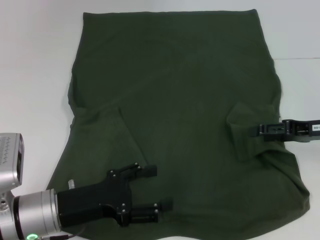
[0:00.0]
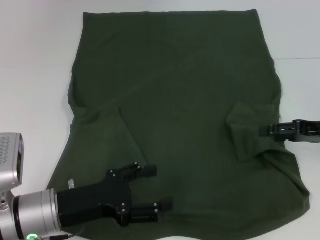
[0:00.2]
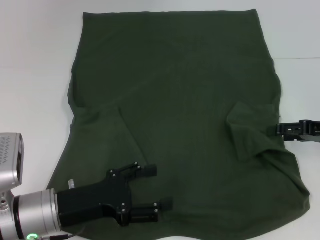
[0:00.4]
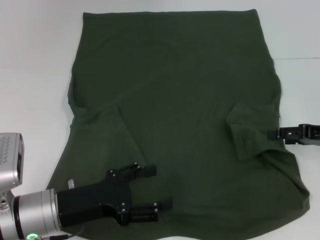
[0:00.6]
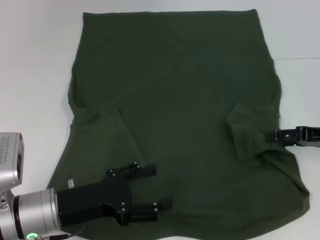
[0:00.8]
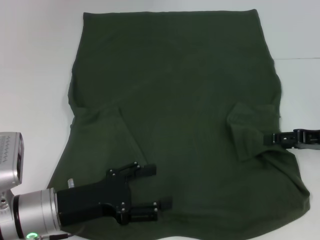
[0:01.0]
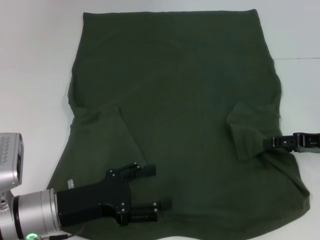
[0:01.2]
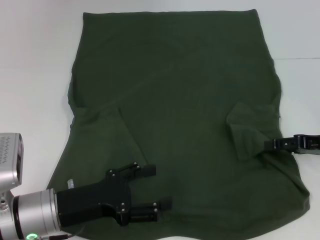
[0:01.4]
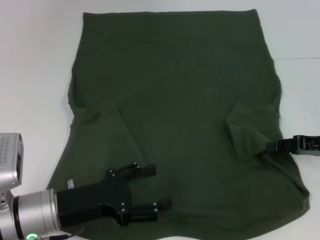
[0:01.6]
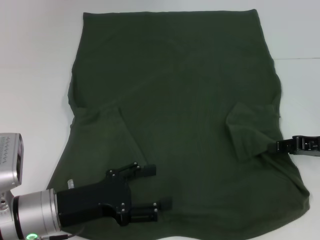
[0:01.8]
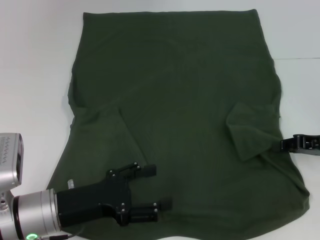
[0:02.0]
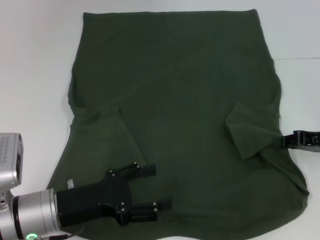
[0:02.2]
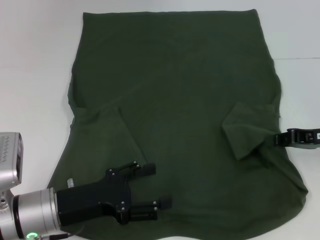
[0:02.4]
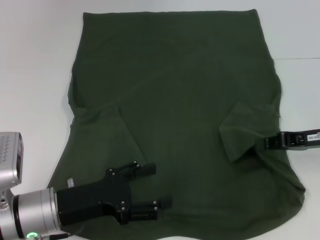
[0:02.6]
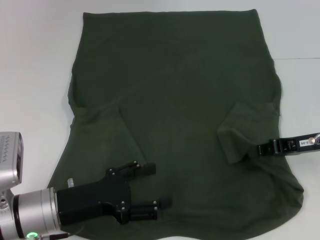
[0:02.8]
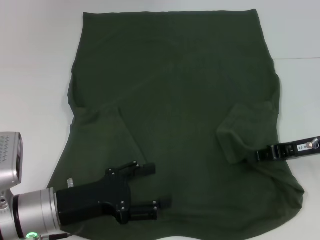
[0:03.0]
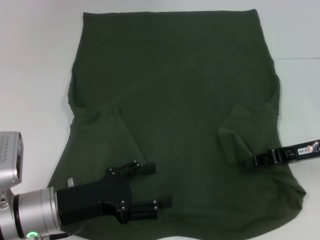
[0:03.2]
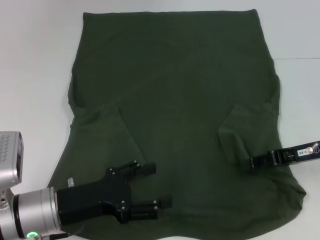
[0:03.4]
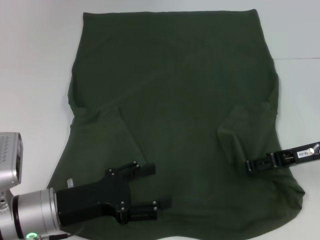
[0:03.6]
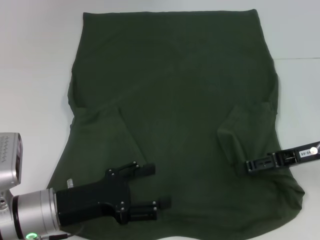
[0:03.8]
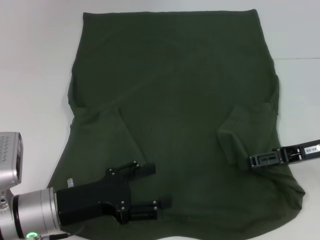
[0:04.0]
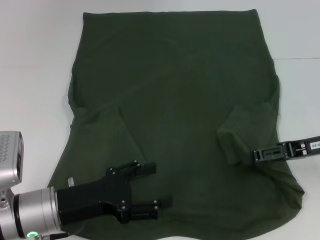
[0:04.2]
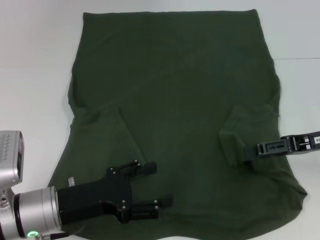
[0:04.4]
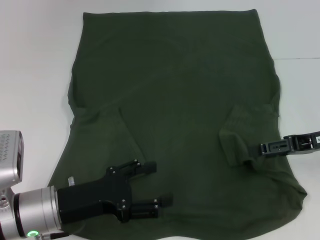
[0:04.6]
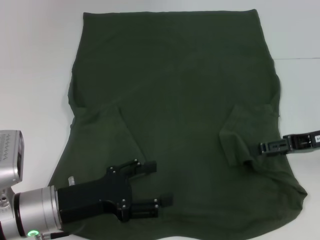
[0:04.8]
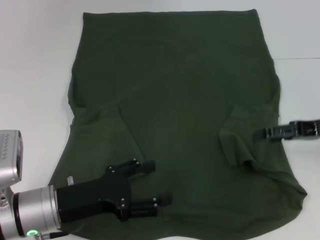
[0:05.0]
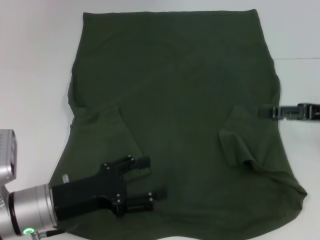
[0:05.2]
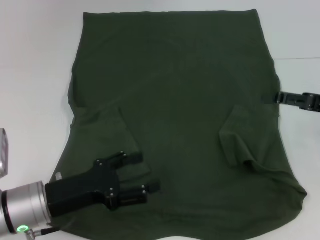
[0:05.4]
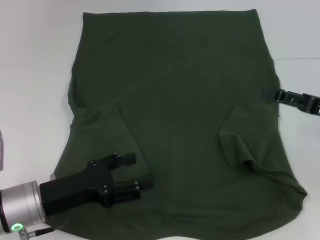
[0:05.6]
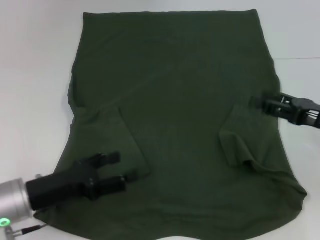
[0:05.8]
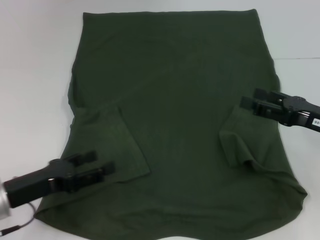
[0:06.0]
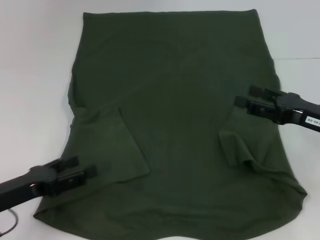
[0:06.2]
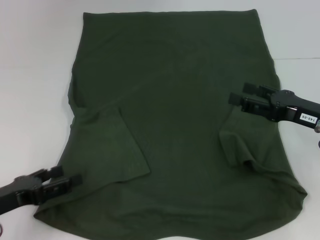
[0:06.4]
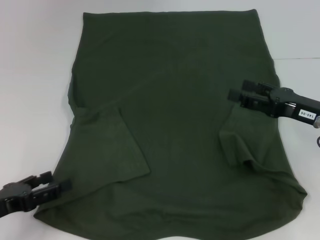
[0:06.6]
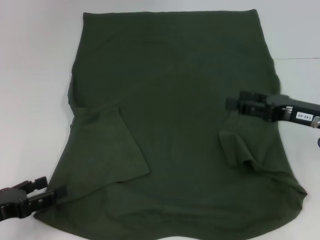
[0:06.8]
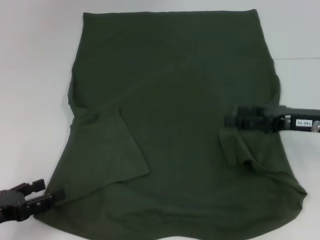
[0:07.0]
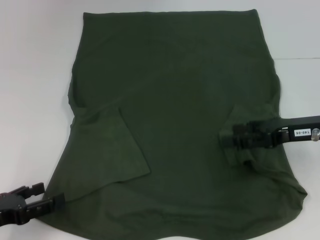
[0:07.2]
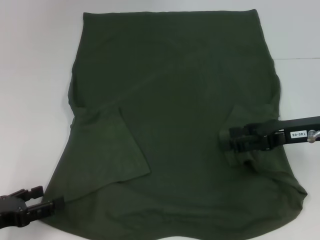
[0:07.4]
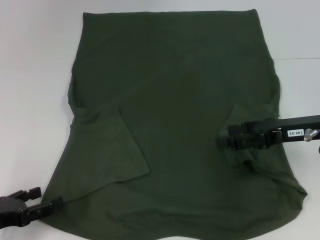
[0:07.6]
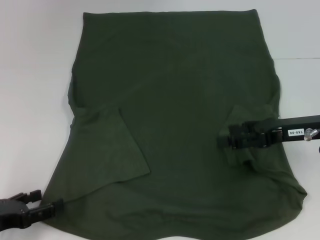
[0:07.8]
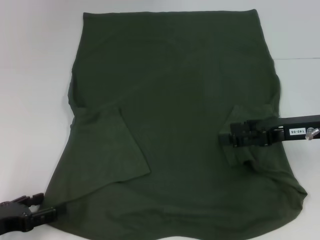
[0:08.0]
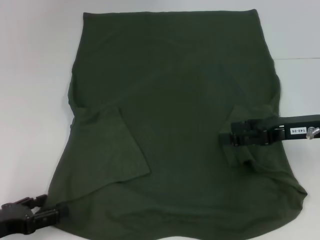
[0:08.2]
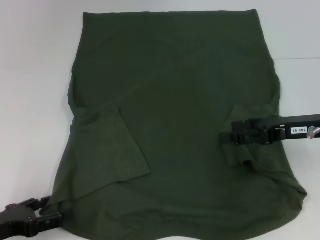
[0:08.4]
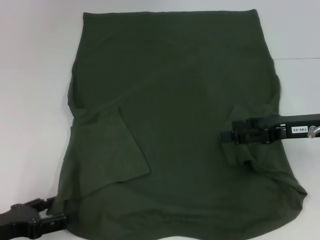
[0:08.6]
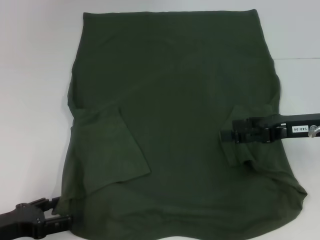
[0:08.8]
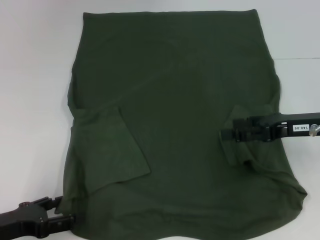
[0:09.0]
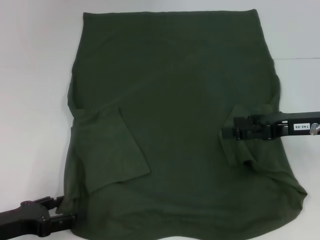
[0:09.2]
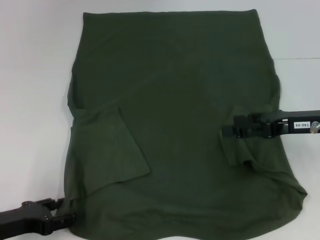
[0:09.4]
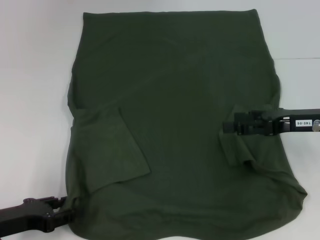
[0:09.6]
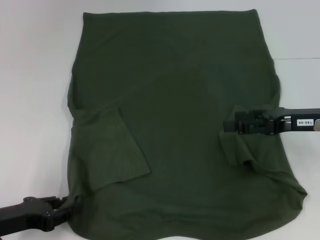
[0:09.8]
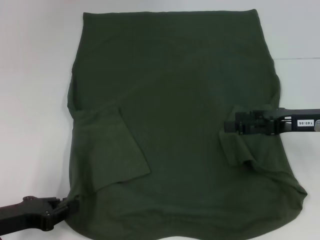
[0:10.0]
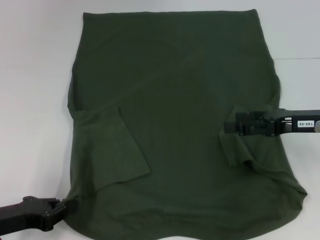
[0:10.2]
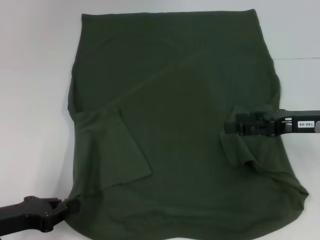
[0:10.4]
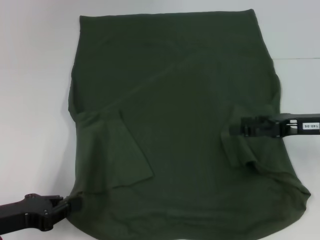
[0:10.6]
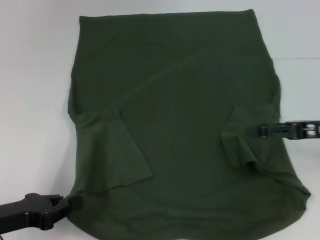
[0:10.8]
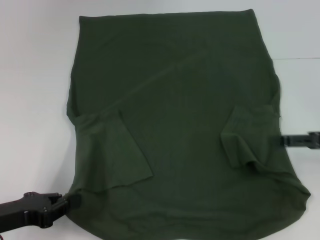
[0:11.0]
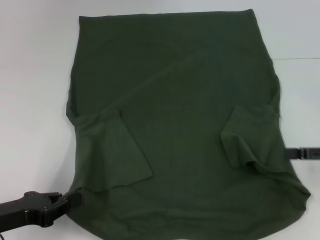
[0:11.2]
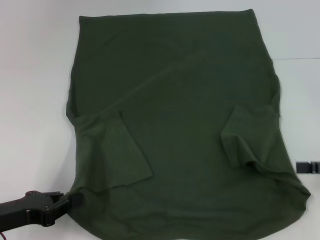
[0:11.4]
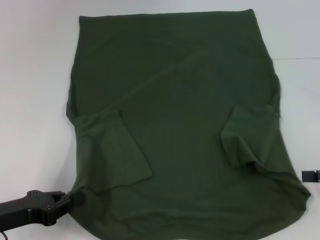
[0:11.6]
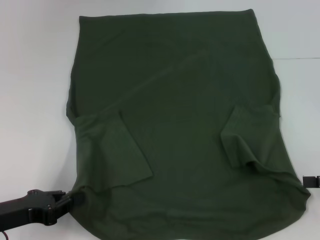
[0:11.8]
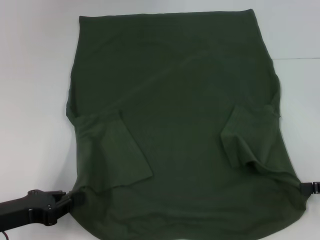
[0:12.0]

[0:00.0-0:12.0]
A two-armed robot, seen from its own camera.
Step, 0:00.0 to 0:04.4: Fold the bottom right sleeve with your right hand.
Step, 0:04.6 to 0:10.0: Grab the bottom left corner with your left hand.
0:00.0 to 0:01.6: The grippers move only a little.
0:01.6 to 0:03.0: The right gripper closes its fingers.
0:03.0 to 0:04.4: The right gripper opens up.
0:04.4 to 0:06.0: The left gripper travels to the left by about 5 cm.
0:06.0 to 0:07.6: The left gripper goes about 5 cm to the left.
0:07.6 to 0:09.0: The grippers move only a little.
0:09.0 to 0:10.4: The left gripper closes its fingers.
0:10.4 to 0:12.0: The right gripper goes some 15 cm to the right and backward.

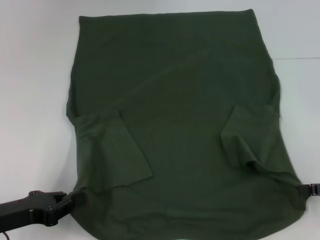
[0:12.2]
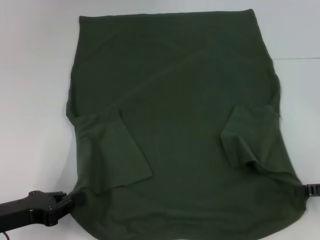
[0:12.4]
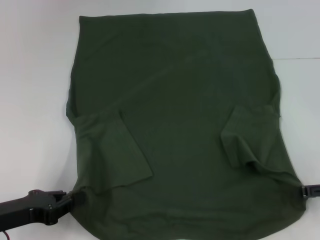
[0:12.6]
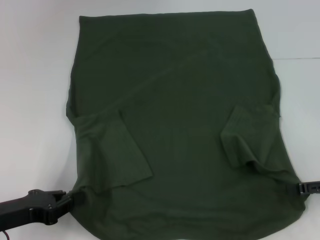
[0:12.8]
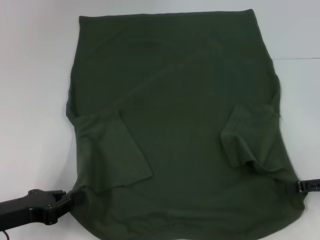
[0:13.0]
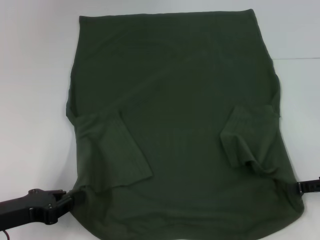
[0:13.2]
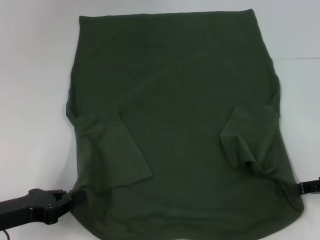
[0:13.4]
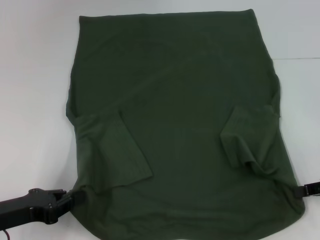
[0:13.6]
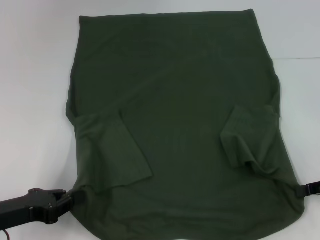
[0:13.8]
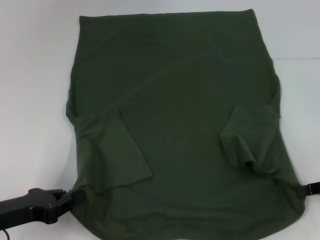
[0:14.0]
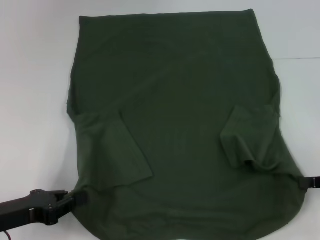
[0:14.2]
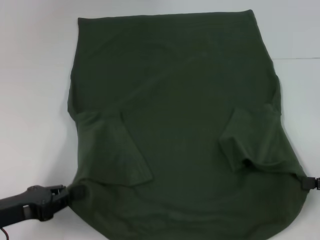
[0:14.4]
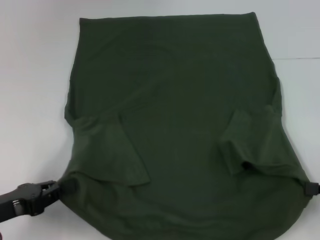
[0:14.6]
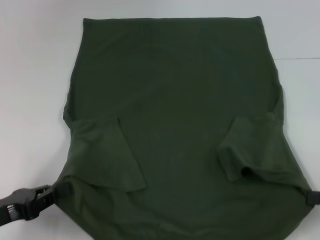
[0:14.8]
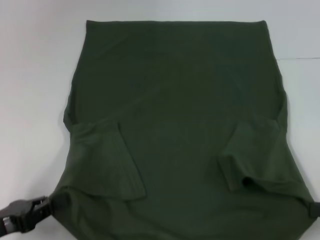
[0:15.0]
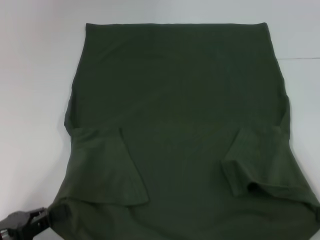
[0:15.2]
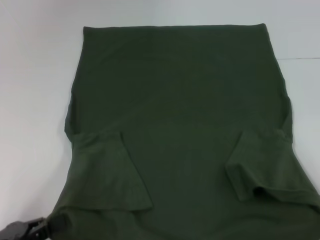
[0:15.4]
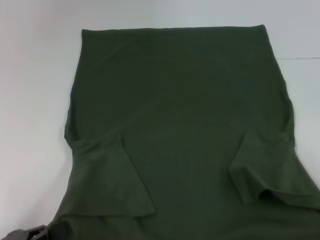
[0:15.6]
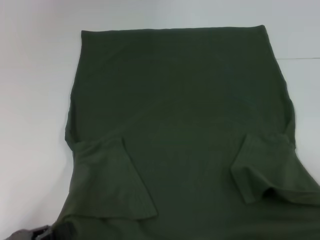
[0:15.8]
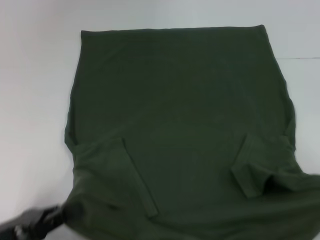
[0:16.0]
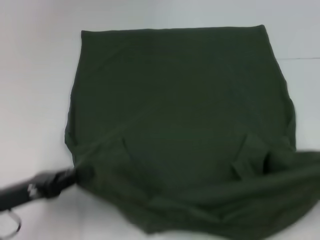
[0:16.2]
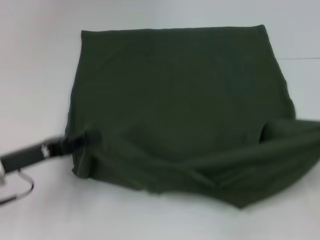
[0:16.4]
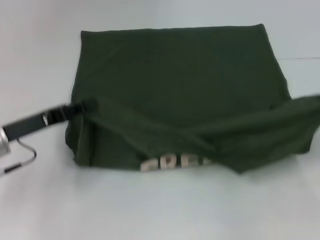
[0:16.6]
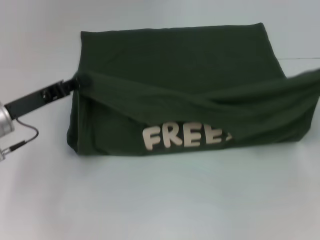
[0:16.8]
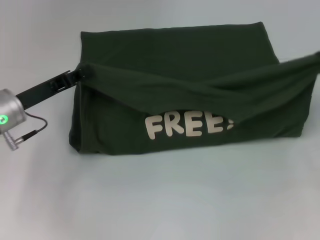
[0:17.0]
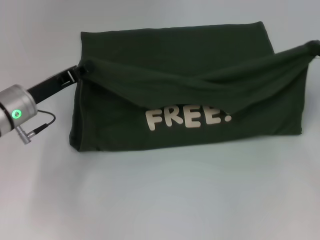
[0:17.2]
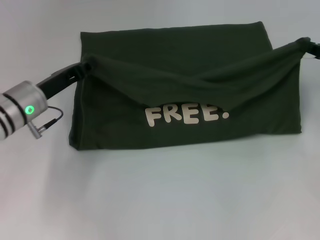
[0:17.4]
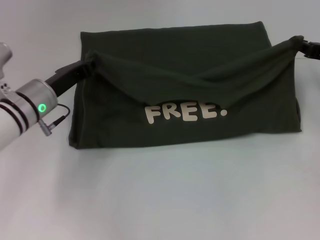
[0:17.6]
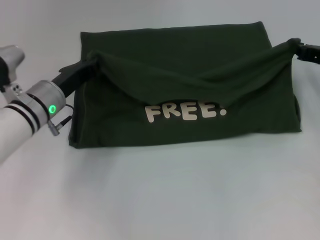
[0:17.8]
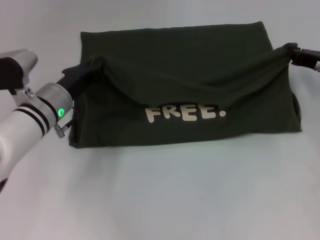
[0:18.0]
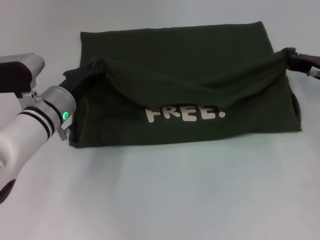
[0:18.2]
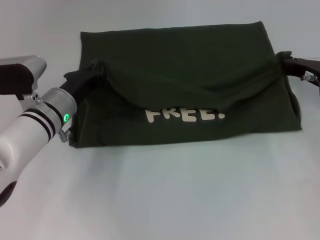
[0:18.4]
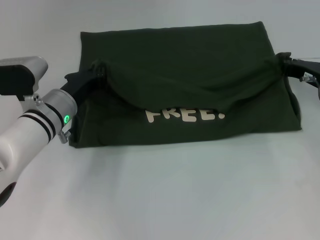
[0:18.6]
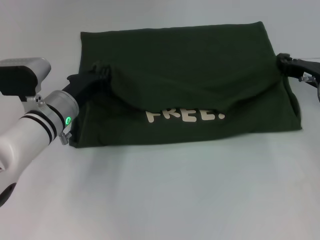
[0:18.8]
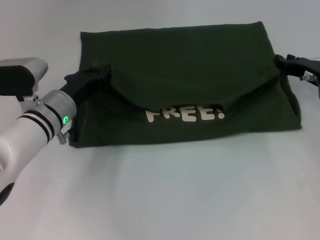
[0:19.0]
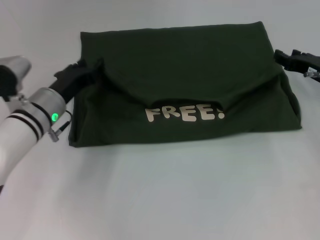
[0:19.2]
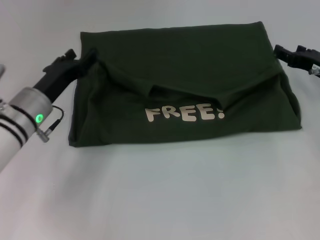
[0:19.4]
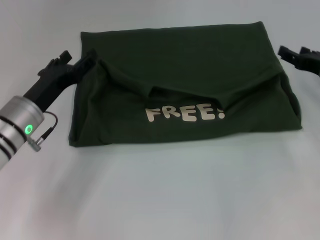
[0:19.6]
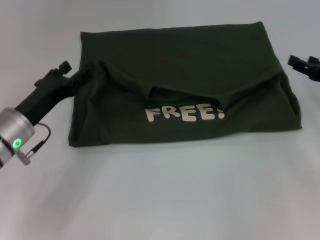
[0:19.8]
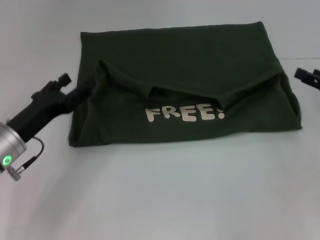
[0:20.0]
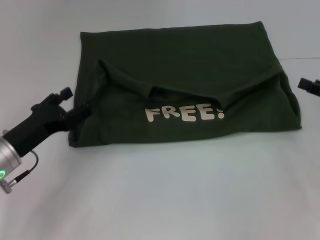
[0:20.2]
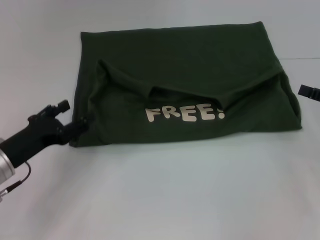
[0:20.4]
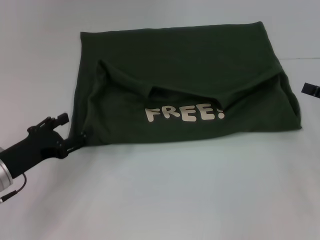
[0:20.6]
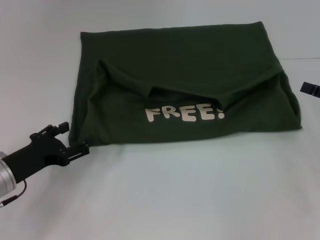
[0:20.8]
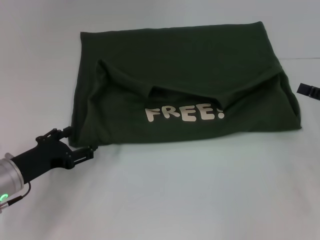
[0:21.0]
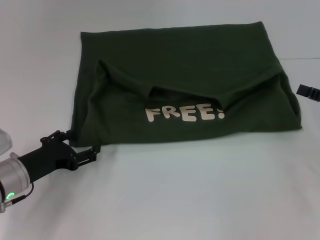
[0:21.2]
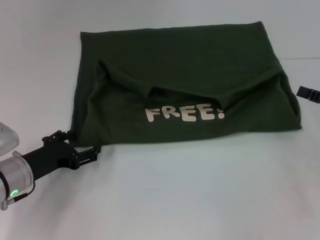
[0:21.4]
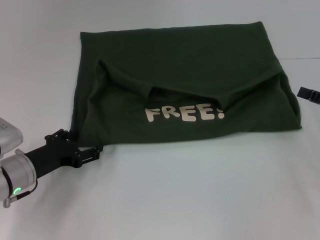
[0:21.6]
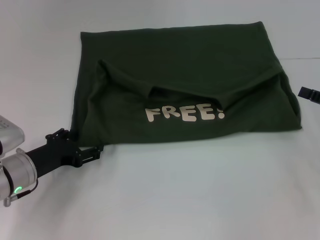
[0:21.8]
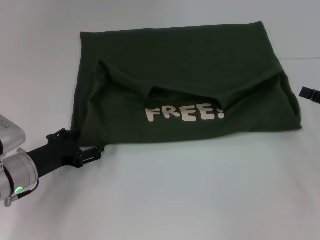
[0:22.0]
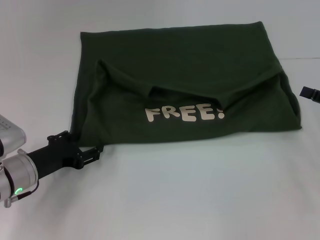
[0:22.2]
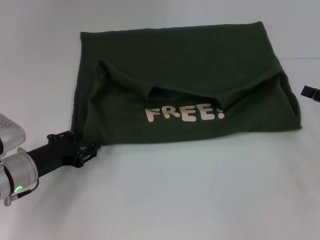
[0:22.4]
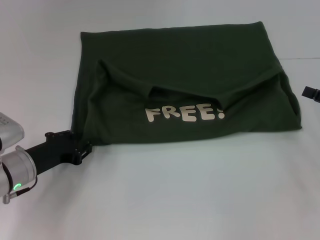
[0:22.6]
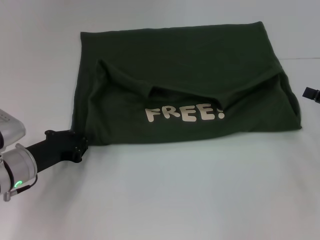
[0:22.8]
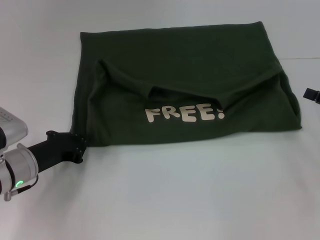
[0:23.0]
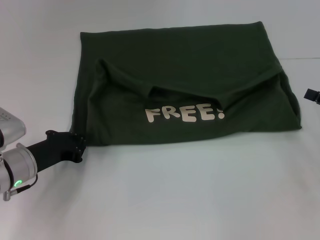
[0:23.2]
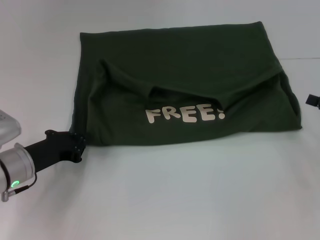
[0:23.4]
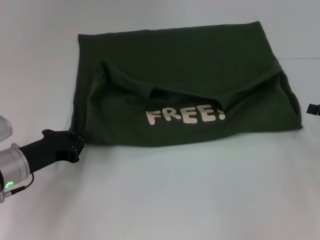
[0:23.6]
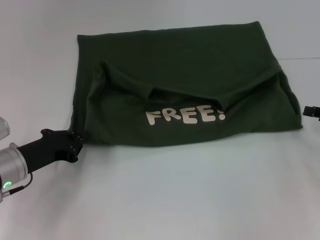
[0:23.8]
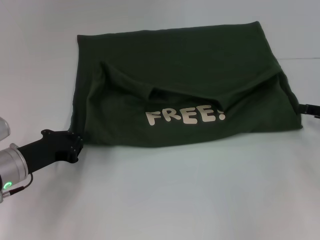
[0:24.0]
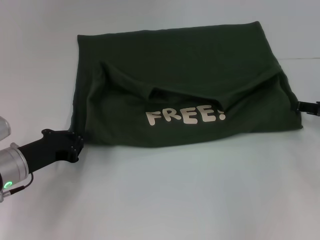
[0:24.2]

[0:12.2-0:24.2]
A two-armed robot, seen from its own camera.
Step, 0:13.8 to 0:18.8: Fold the clothes with your right hand.
Step, 0:19.0 to 0:19.4: Fold the clothes with your left hand.
0:13.8 to 0:15.2: The left gripper goes some 5 cm backward; the right gripper shifts approximately 10 cm backward.
0:15.2 to 0:16.6: The right gripper travels forward and upward by some 10 cm. The left gripper heads forward, covering approximately 15 cm.
0:16.6 to 0:18.2: The right gripper is displaced forward and to the left by approximately 15 cm. Meanwhile the left gripper moves to the right and forward, some 10 cm.
0:18.2 to 0:19.8: The left gripper moves to the left and backward, approximately 10 cm, and opens up. Meanwhile the right gripper goes about 5 cm backward, and opens its fingers.
0:19.8 to 0:21.2: The right gripper shifts by some 5 cm. The left gripper moves roughly 5 cm.
0:21.2 to 0:22.6: The left gripper closes.
0:22.6 to 0:24.2: The left gripper closes up.
